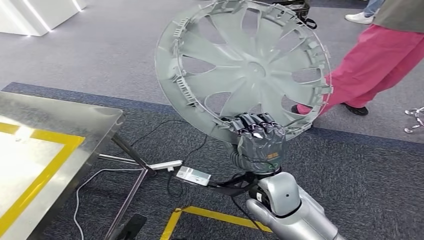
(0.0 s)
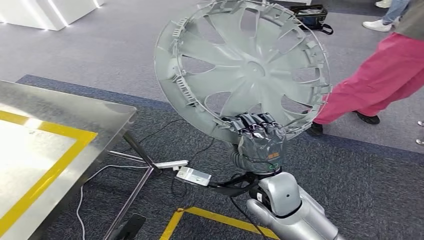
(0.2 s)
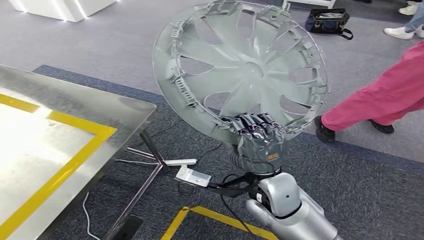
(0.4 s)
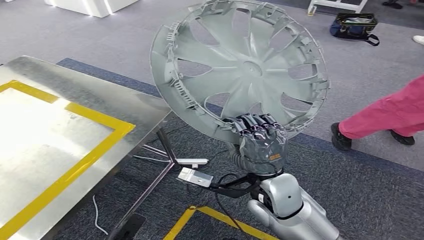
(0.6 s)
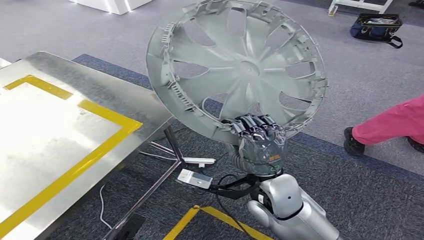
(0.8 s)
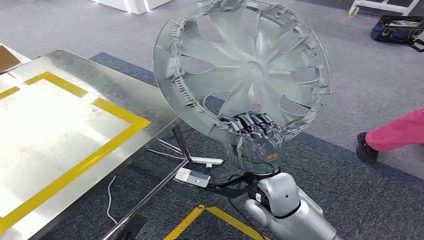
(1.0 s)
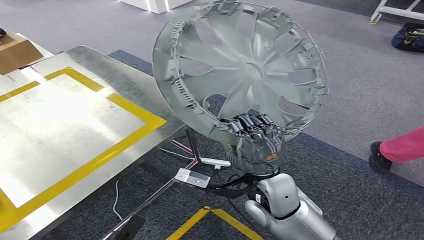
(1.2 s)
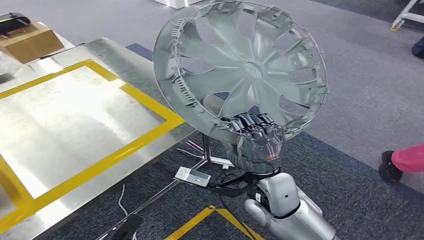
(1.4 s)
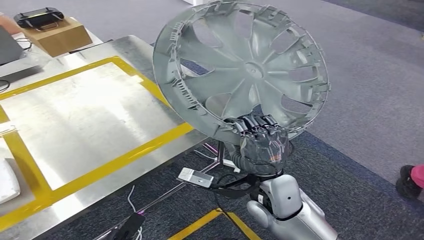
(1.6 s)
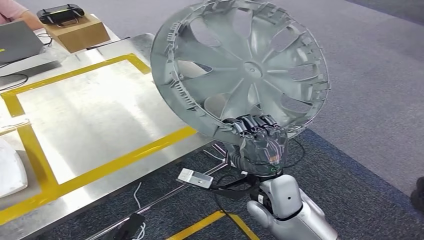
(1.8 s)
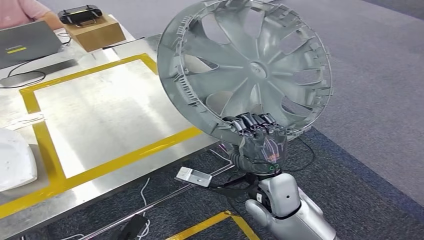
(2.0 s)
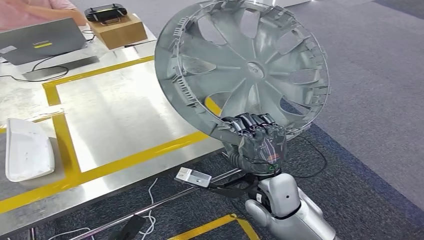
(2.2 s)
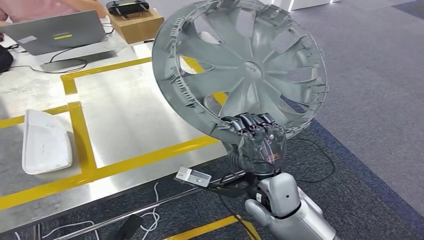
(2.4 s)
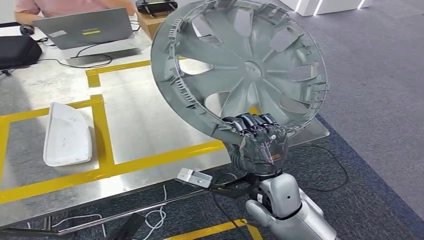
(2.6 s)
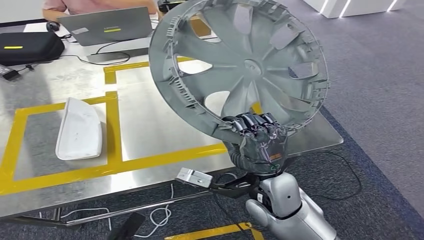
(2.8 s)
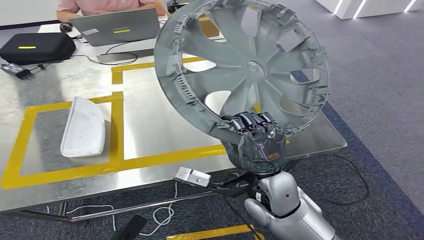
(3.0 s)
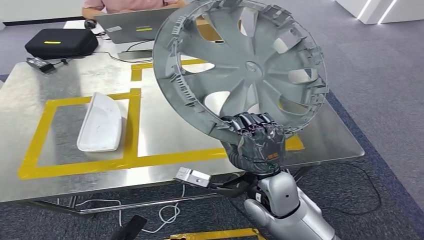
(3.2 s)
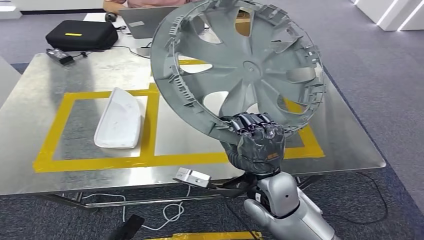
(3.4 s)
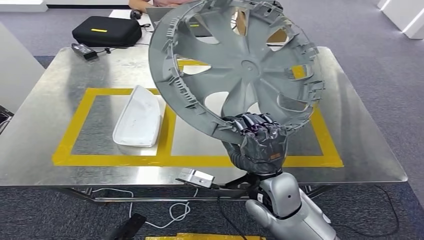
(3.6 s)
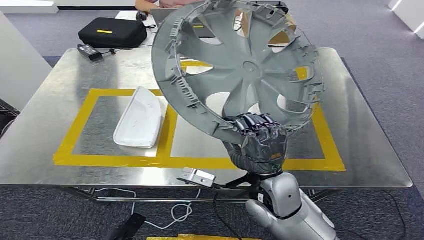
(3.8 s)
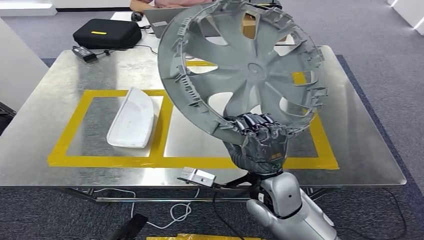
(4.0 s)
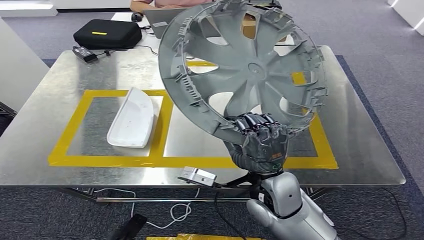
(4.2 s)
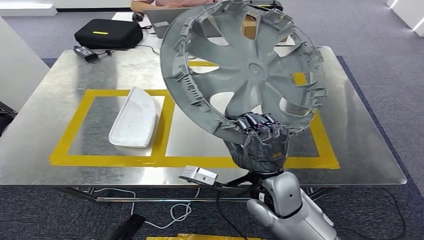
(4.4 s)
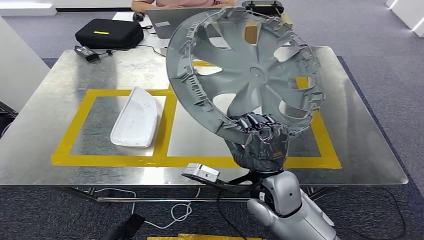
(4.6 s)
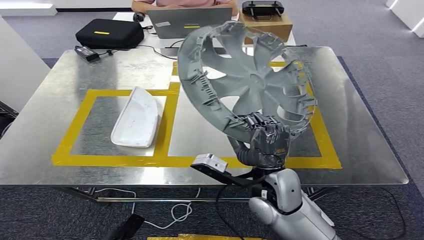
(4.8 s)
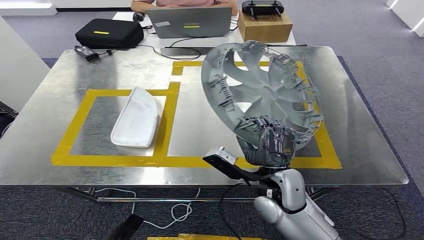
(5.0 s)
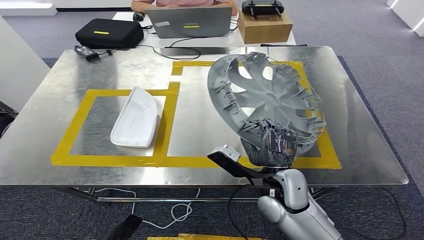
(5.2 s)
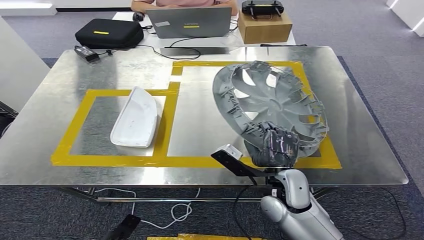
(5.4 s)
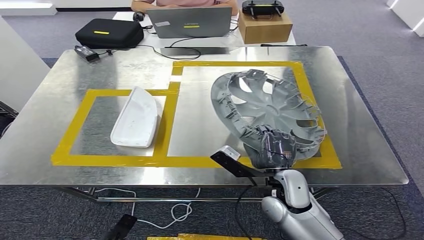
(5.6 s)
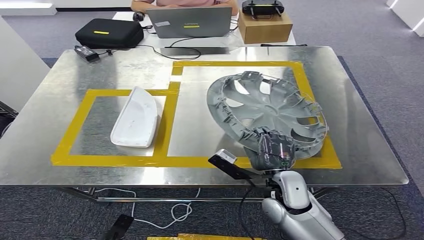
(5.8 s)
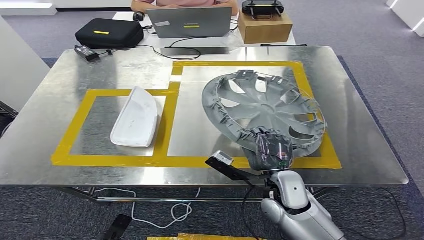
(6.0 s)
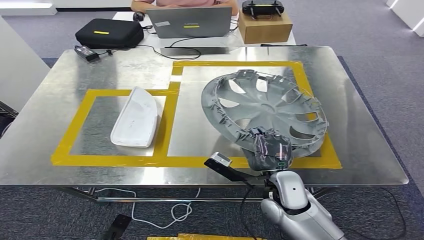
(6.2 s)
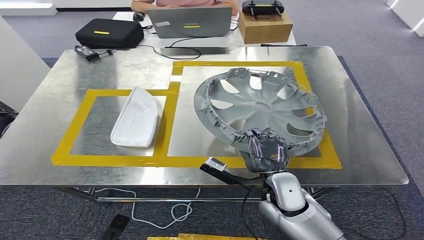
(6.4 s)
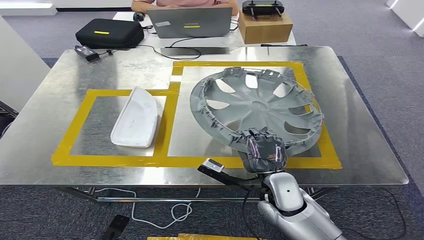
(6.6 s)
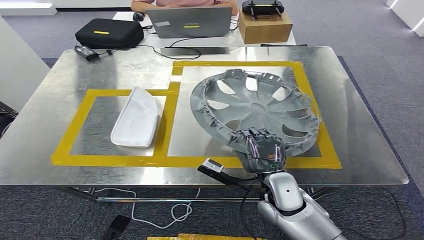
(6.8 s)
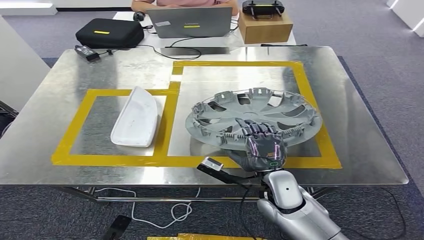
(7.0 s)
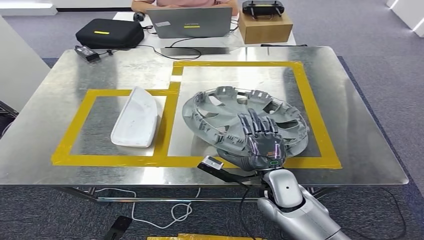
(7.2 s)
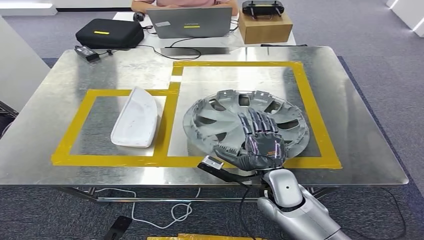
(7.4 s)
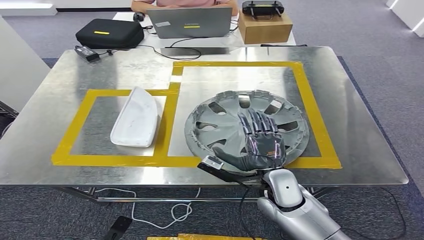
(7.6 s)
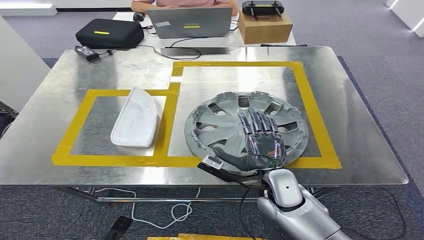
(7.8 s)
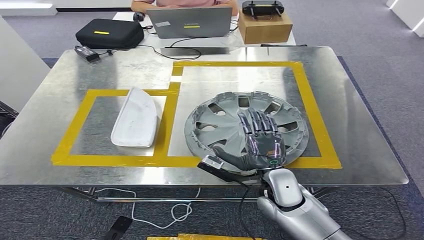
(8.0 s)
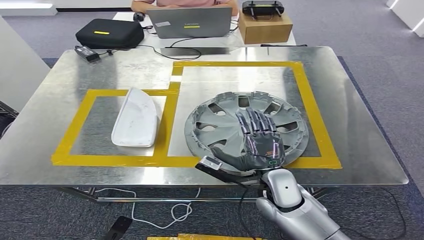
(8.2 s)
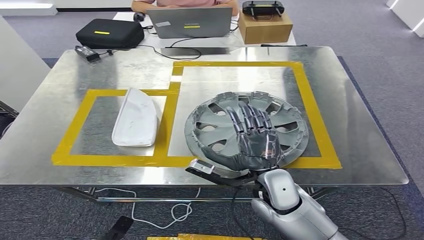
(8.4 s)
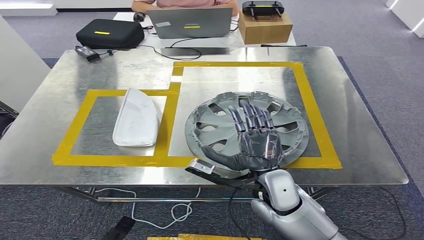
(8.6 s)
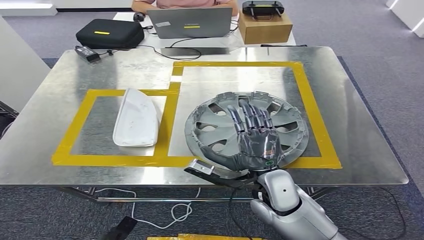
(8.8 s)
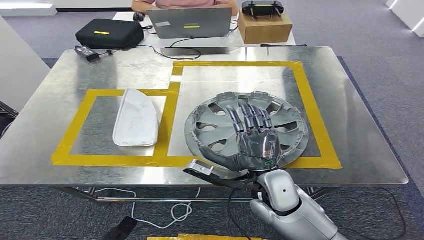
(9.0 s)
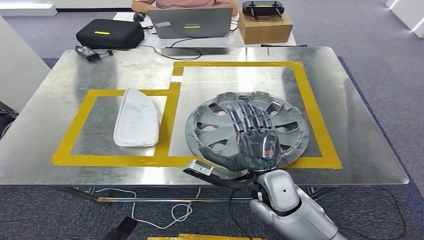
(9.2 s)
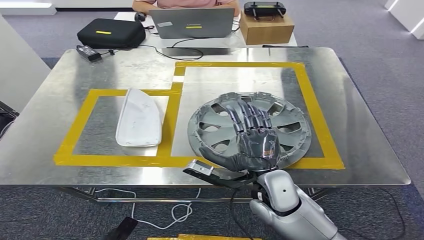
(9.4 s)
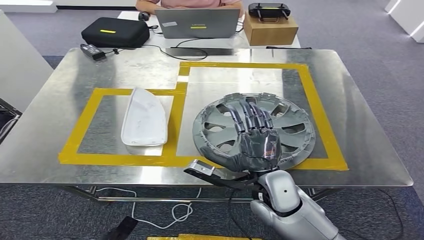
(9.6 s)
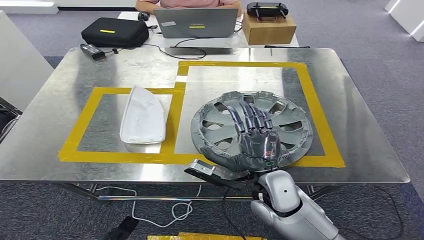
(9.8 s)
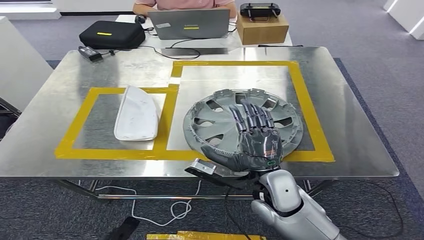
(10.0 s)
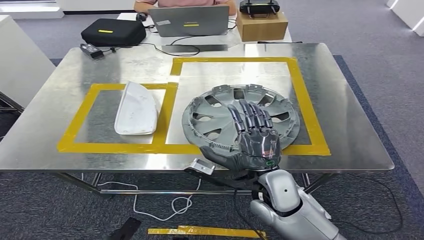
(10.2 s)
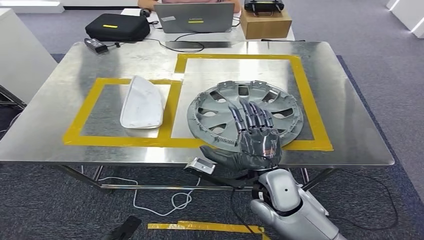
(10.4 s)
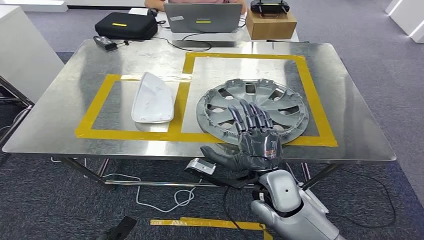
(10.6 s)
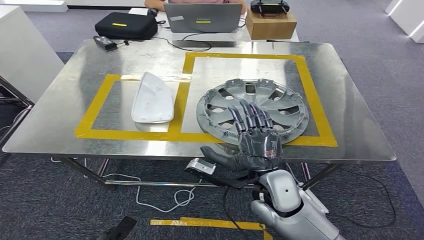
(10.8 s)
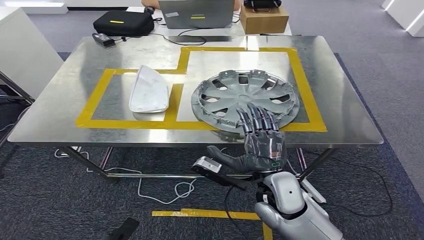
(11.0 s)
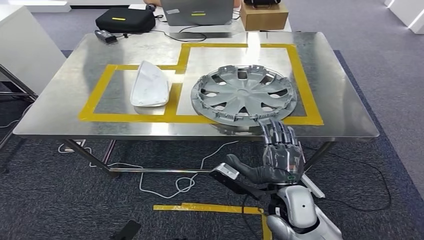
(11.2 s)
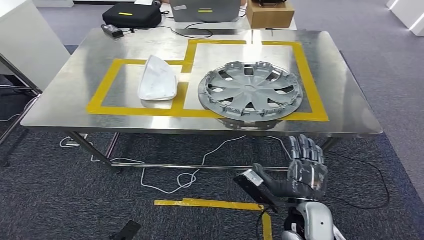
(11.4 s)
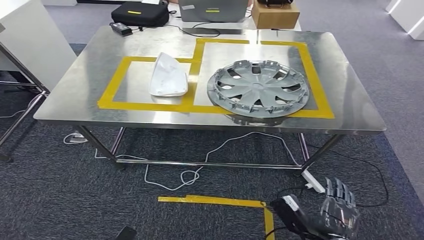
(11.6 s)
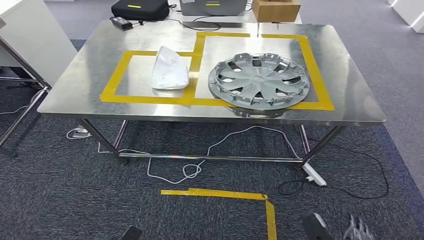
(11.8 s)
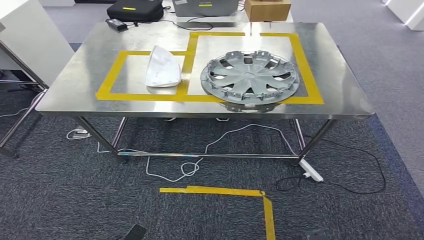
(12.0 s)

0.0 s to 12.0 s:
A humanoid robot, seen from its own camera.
6.0 to 9.0 s: The hands stay close to where they were, moving slightly.

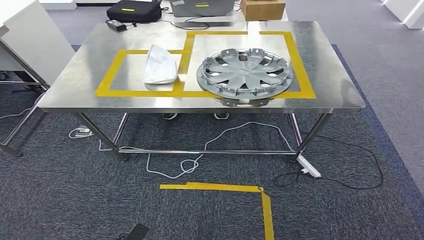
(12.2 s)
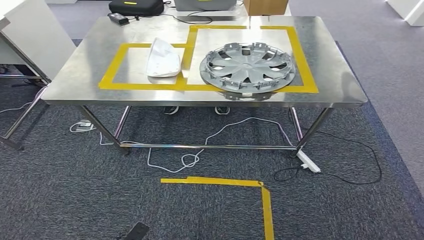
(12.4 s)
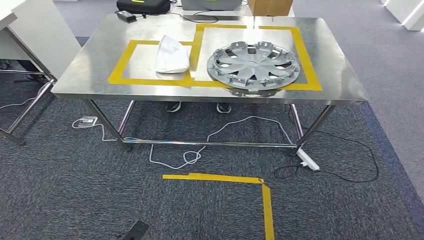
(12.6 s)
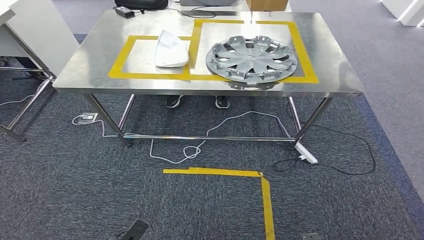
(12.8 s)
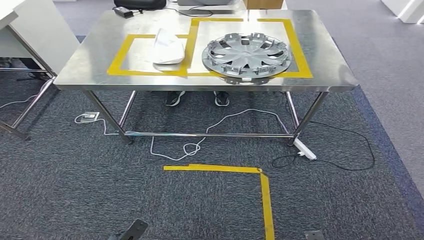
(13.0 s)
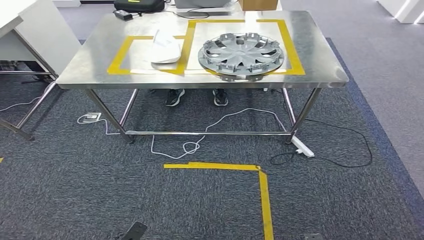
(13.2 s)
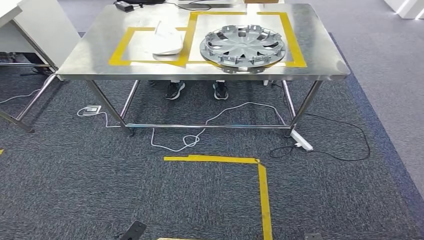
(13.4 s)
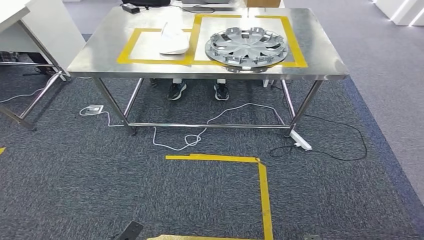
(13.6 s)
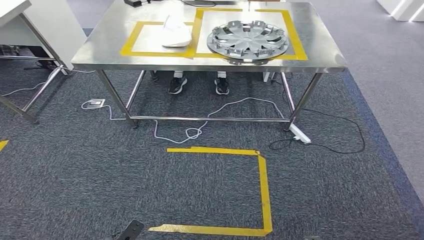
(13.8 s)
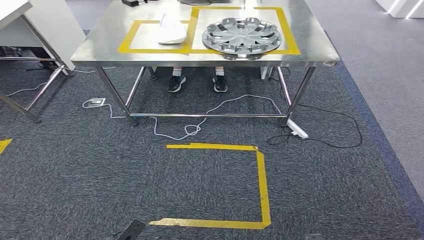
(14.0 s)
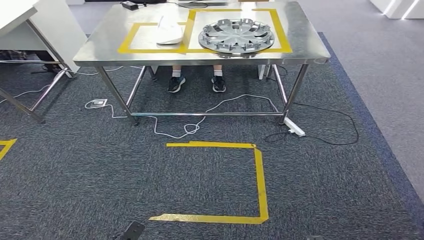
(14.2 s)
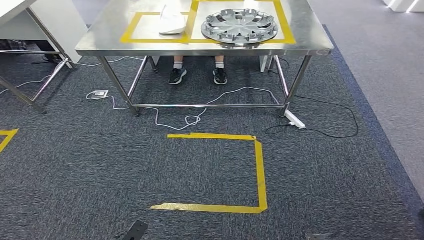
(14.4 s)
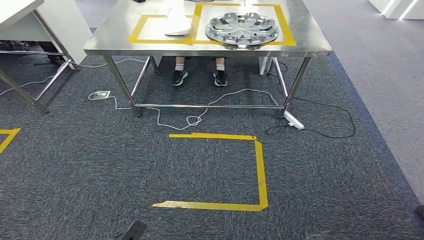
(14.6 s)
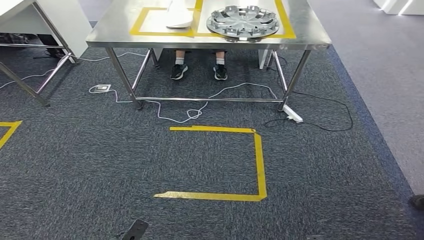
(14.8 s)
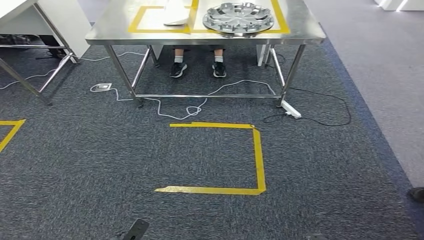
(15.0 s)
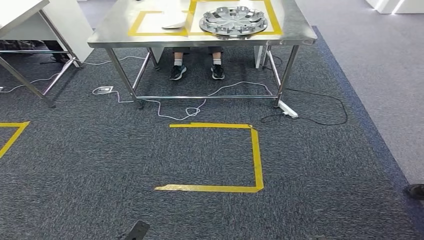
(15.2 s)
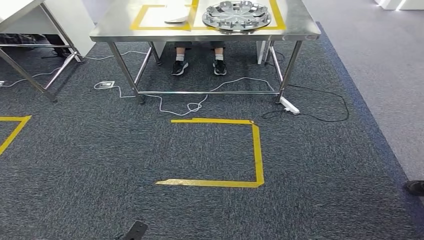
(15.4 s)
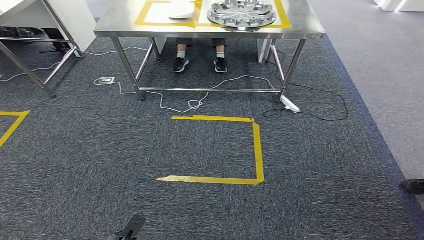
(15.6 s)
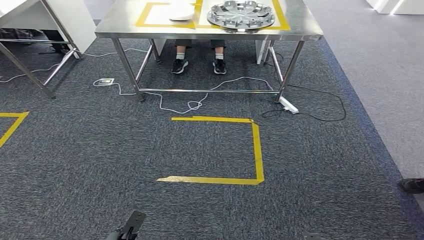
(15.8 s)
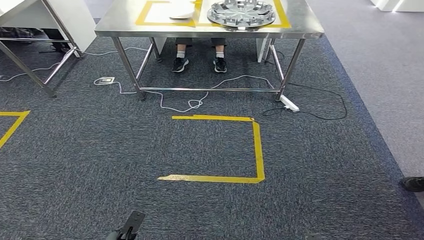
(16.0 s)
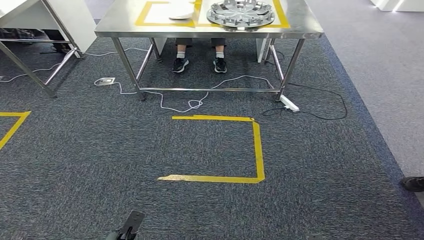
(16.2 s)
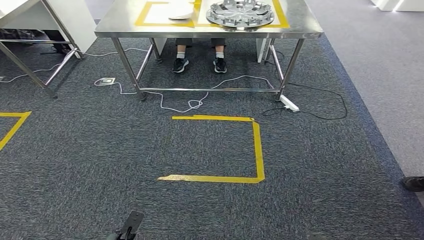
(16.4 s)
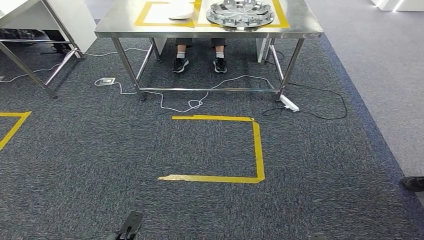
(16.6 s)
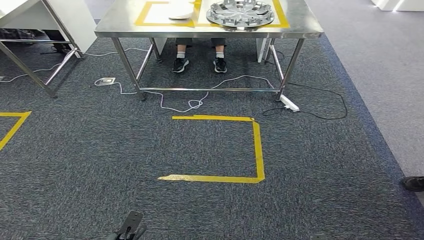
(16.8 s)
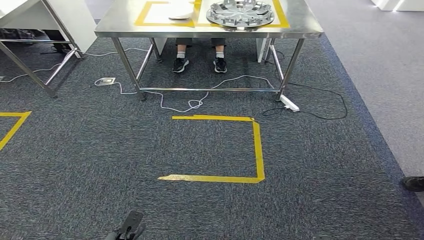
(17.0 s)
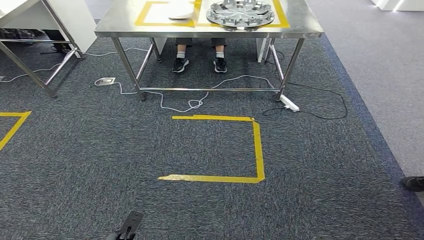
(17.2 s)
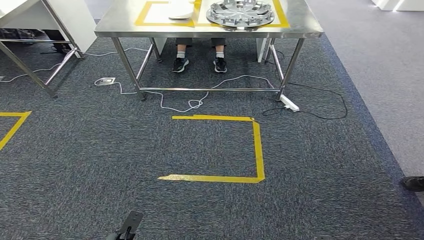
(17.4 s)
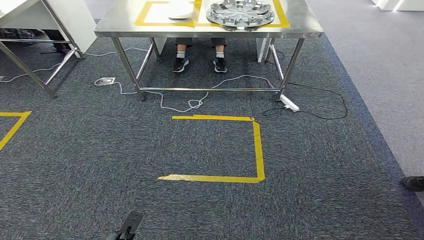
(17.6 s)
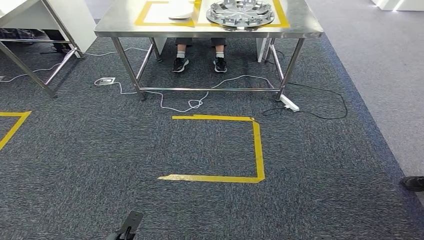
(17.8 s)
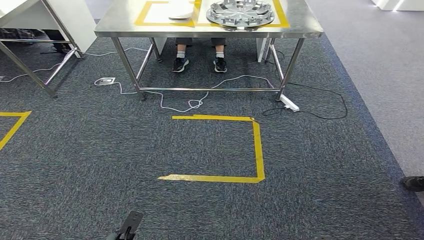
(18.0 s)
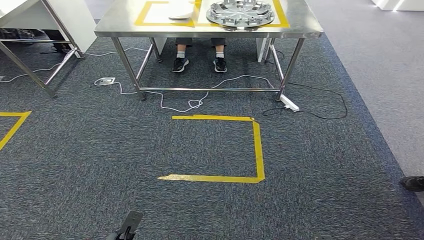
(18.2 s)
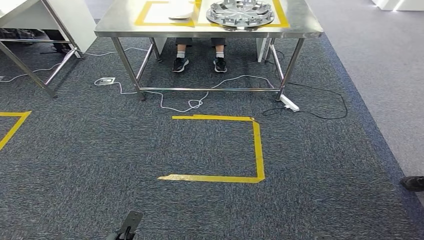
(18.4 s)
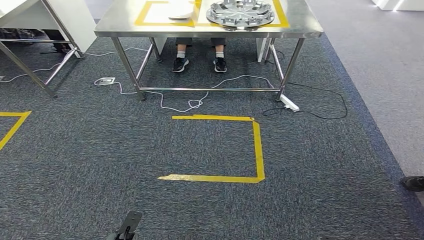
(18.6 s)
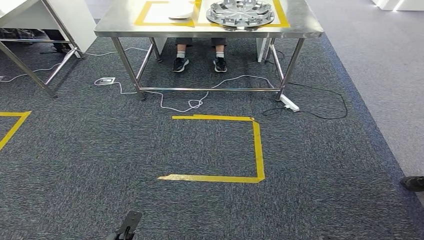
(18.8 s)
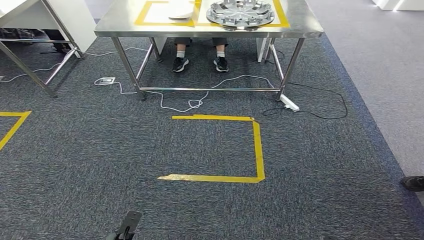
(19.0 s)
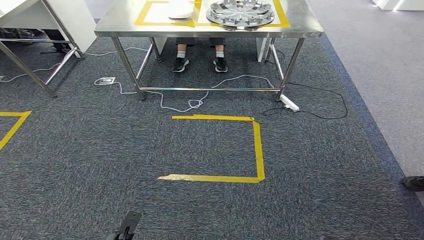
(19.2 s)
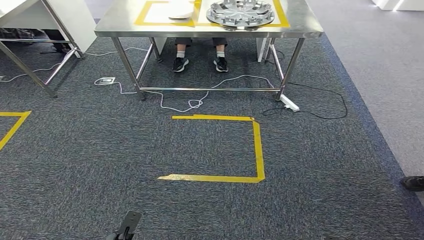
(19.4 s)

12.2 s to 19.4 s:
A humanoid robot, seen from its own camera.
Step, 12.2 to 15.8 s: Insert the small parts into the corresponding holes on the workbench.
15.0 to 16.6 s: The hands move only a little.
